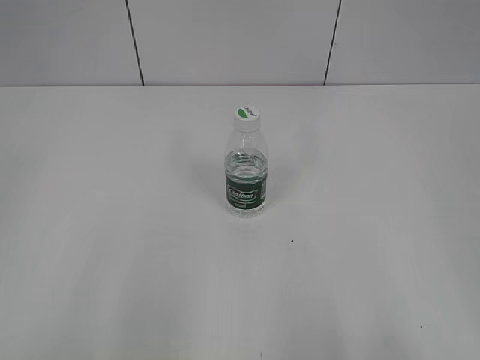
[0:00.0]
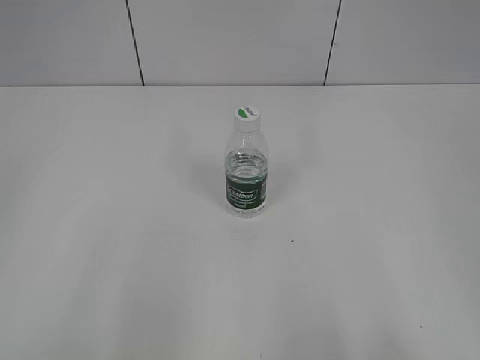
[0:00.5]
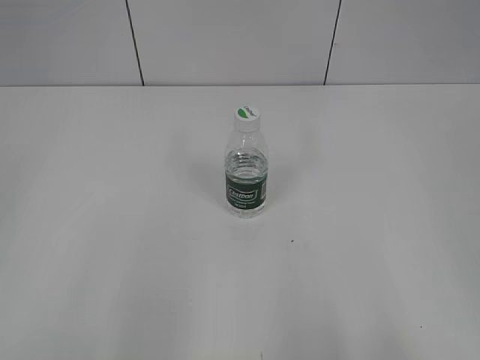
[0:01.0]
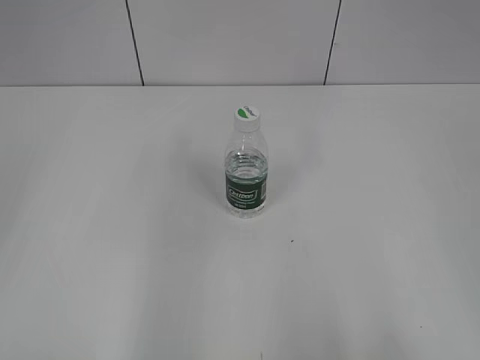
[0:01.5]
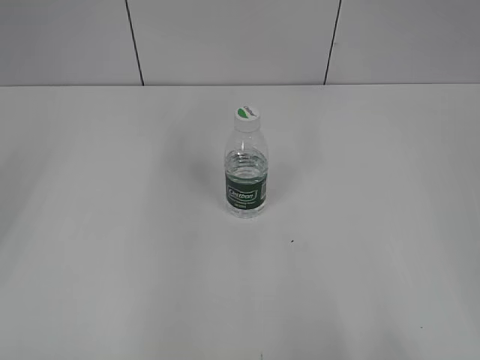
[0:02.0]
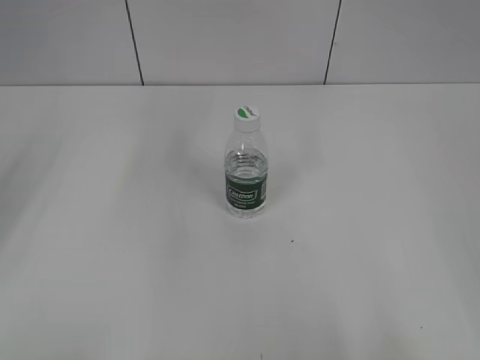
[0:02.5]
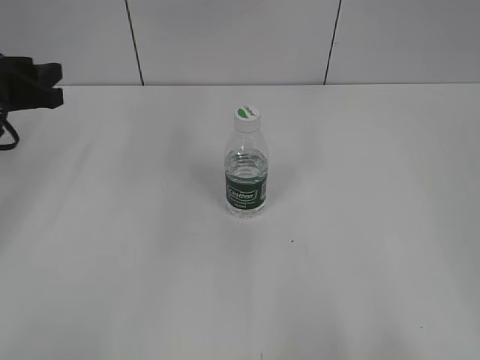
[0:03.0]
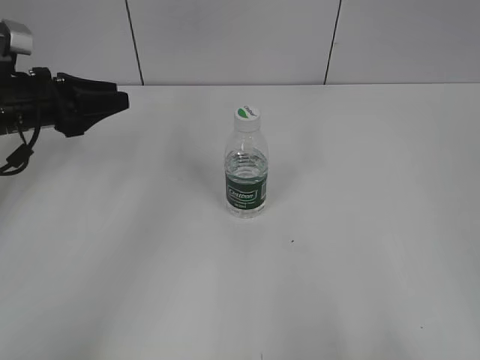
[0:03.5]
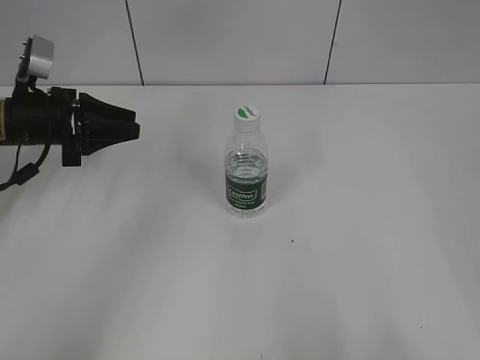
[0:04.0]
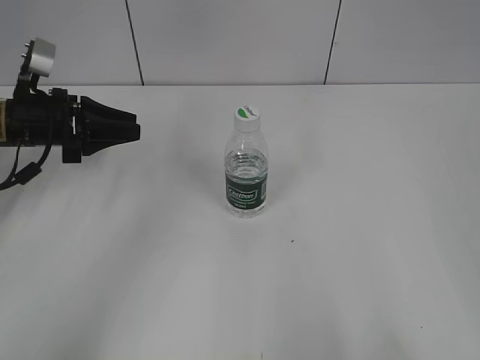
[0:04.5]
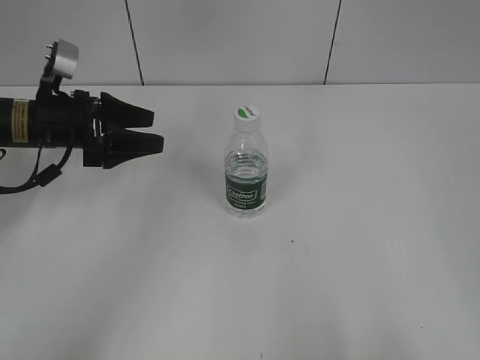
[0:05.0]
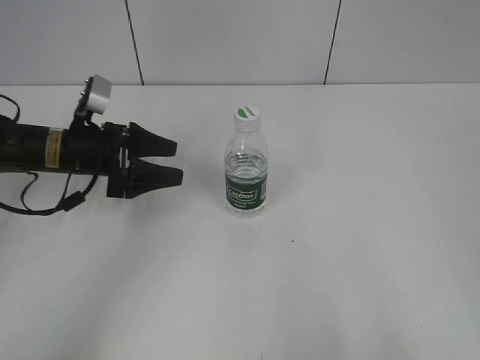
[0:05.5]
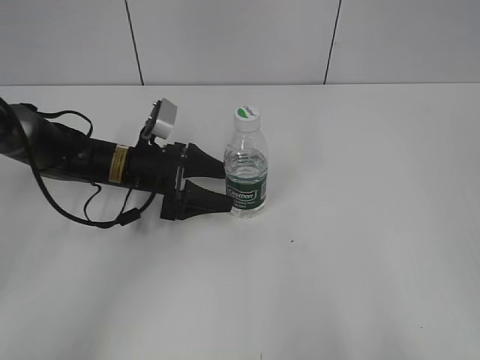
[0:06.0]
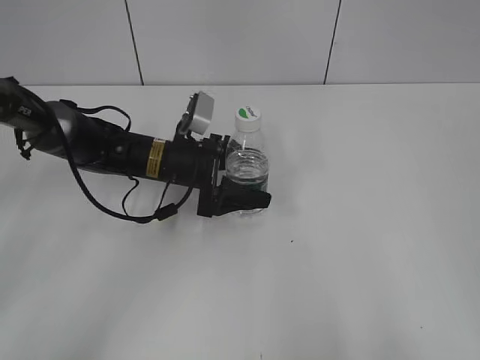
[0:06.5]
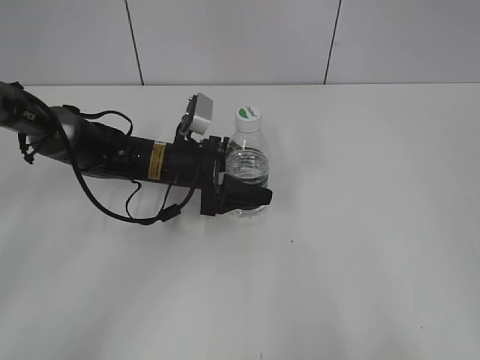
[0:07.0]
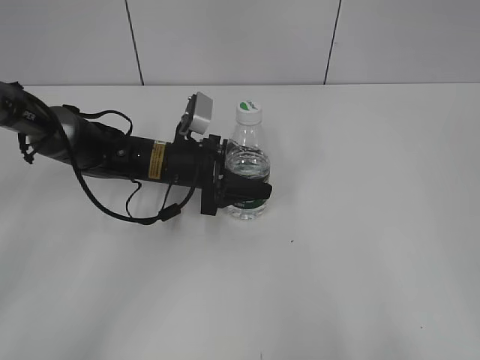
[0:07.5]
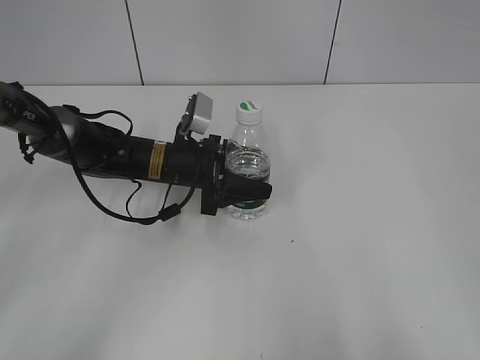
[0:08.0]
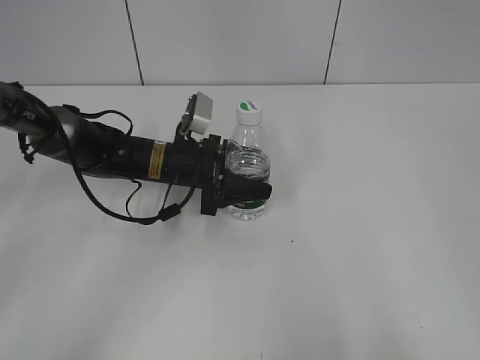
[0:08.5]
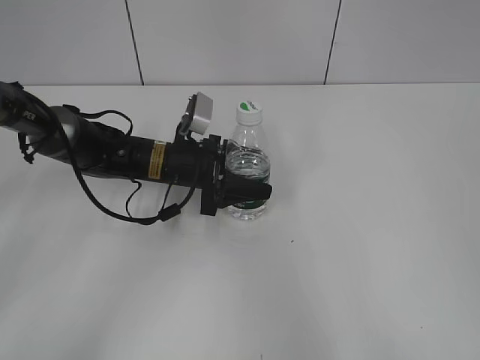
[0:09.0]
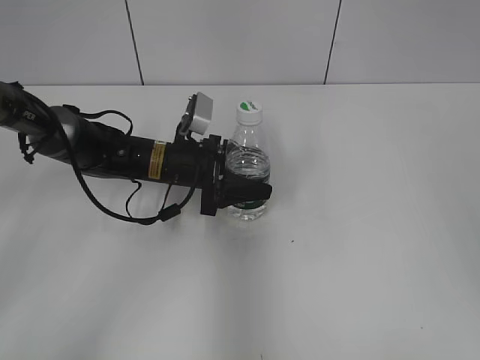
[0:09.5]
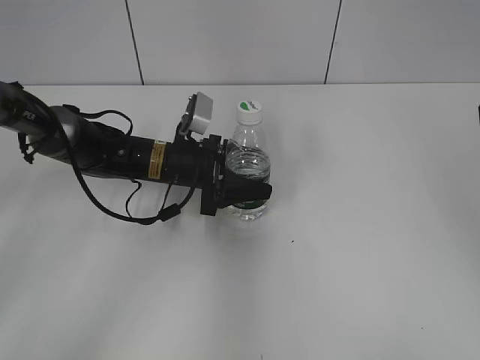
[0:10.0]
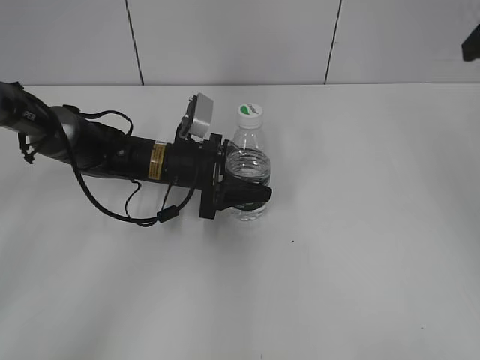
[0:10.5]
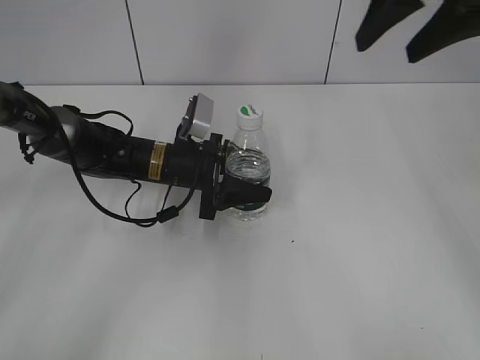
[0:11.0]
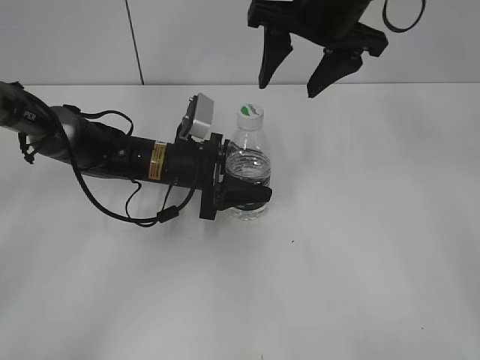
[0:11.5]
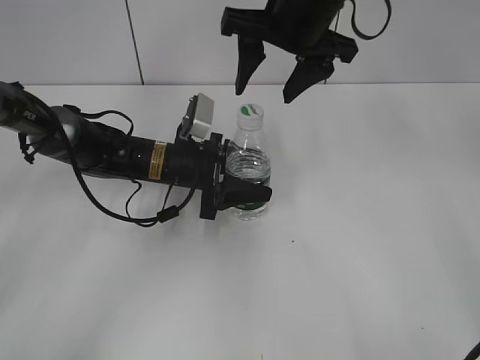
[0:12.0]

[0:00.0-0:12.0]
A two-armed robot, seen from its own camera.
Step, 0:00.0 to 0:07.5: Grasp the bottle and move it to the center of the table with the left gripper.
0:02.0 to 0:04.0: The left gripper shifts approximately 25 cm forward and downward.
0:04.0 to 0:06.0: The left gripper heads to the right and downward, covering roughly 15 cm, and opens.
0:06.0 to 0:08.0: The left gripper shifts some 5 cm to the right, and closes up.
0:08.0 to 0:10.0: The right gripper travels forward by some 25 cm.
0:10.0 to 0:12.0: The right gripper moves to the left and forward, approximately 25 cm.

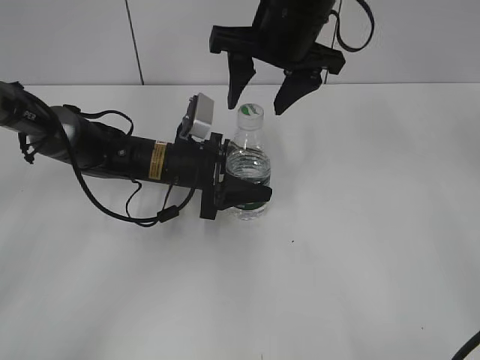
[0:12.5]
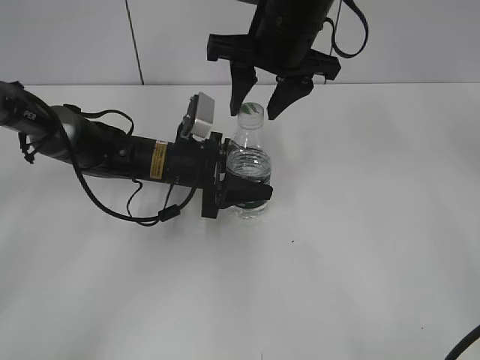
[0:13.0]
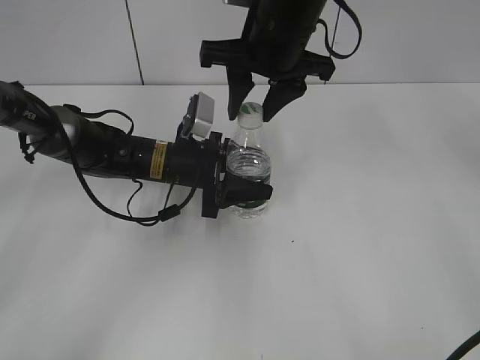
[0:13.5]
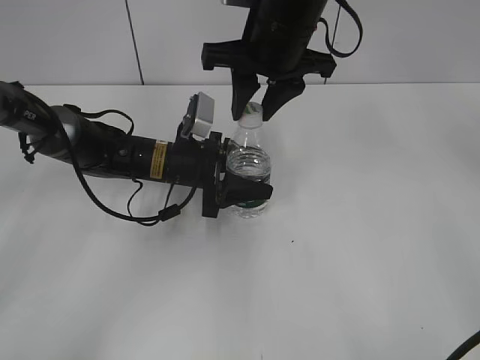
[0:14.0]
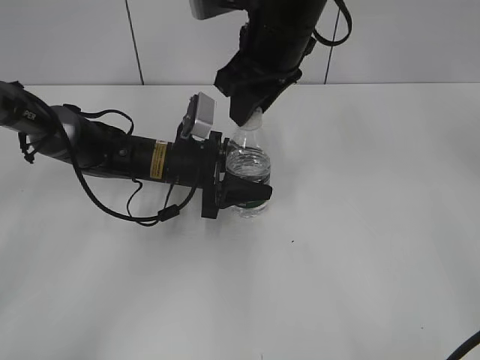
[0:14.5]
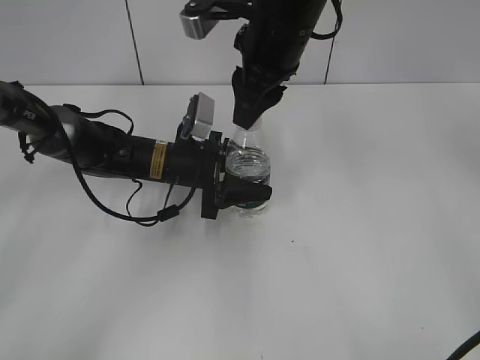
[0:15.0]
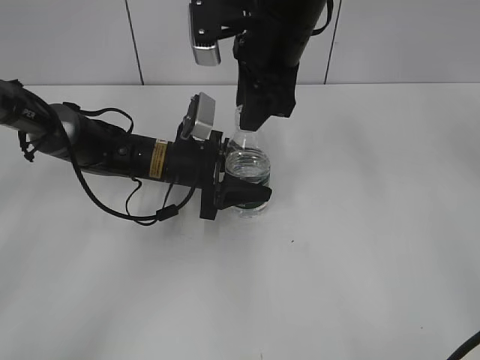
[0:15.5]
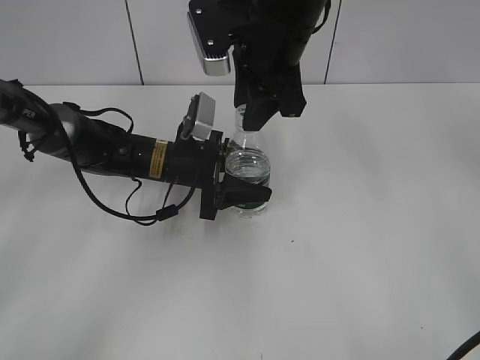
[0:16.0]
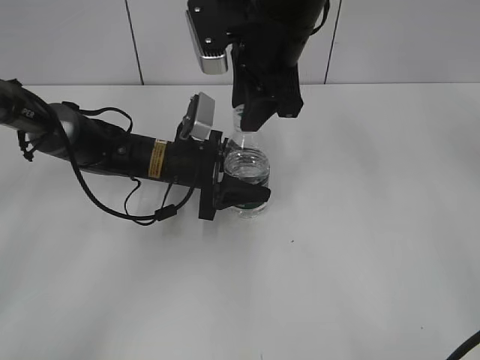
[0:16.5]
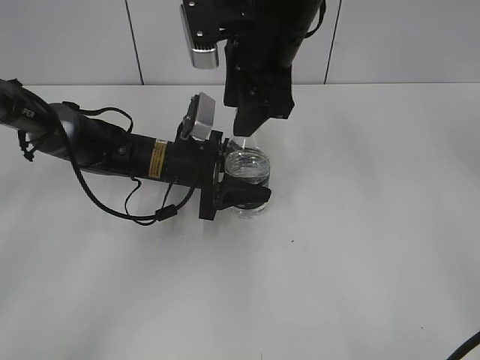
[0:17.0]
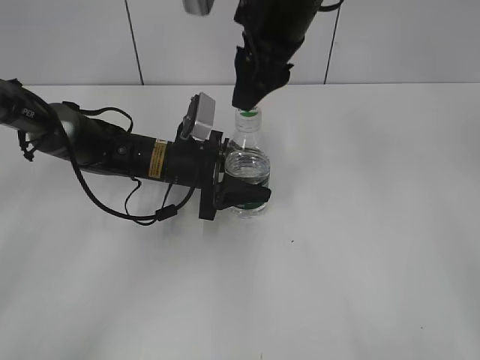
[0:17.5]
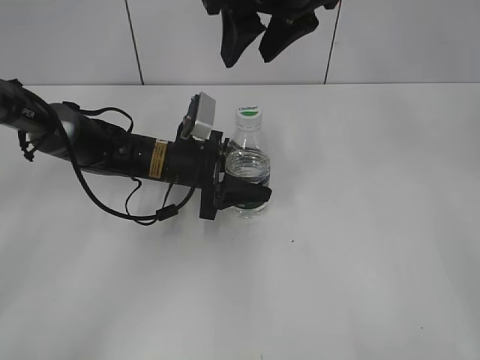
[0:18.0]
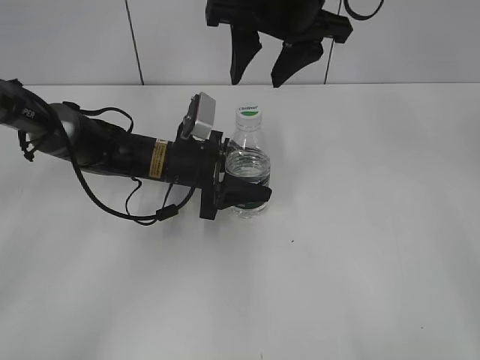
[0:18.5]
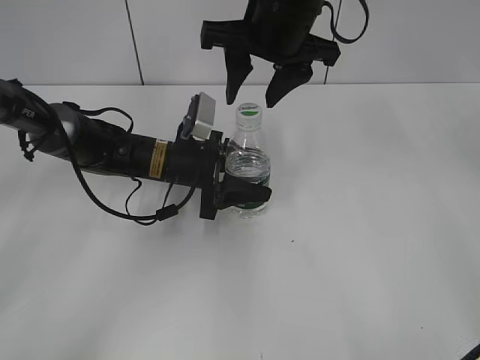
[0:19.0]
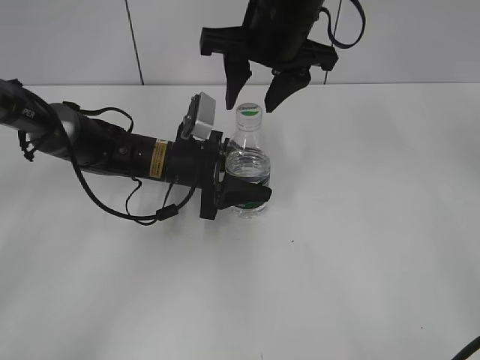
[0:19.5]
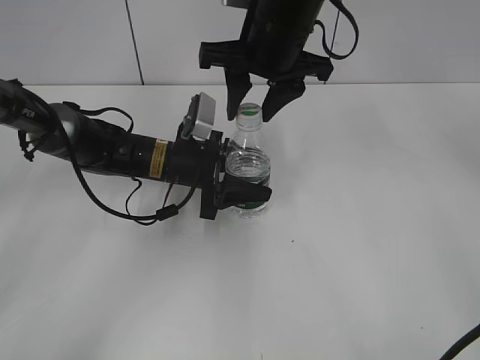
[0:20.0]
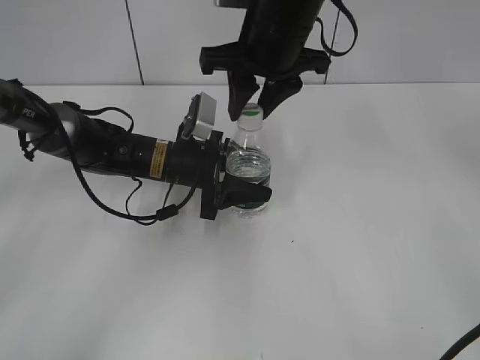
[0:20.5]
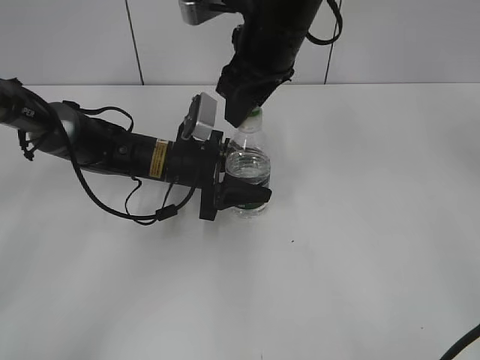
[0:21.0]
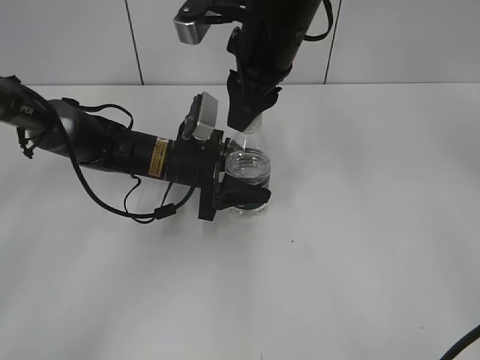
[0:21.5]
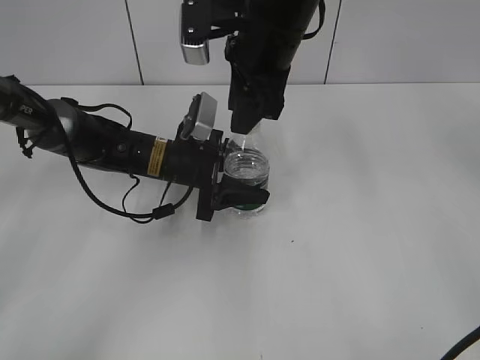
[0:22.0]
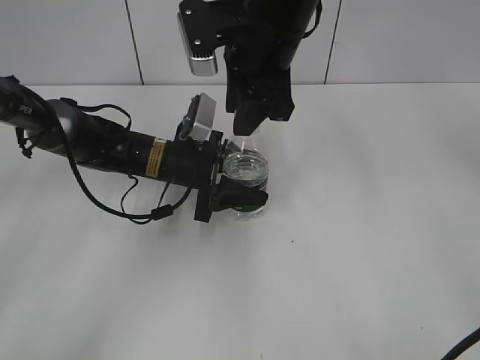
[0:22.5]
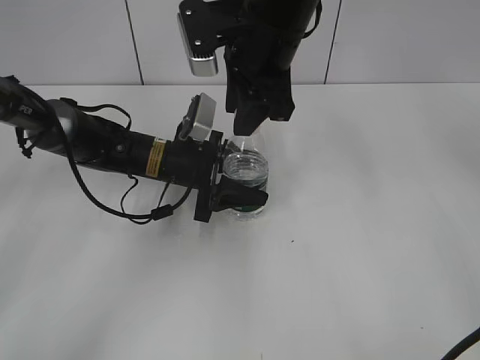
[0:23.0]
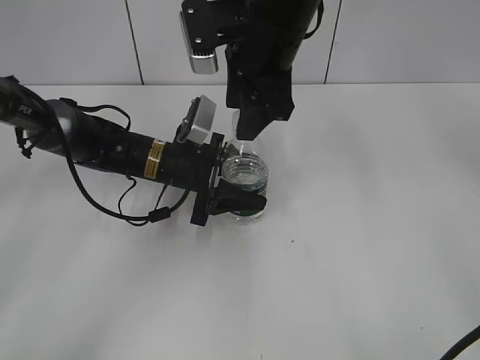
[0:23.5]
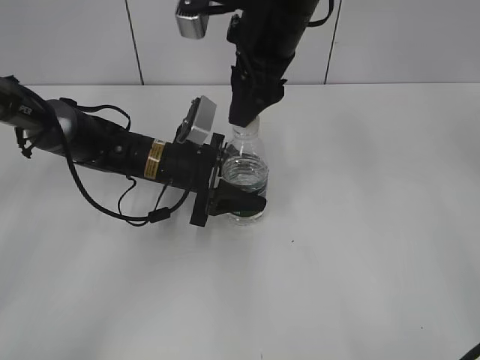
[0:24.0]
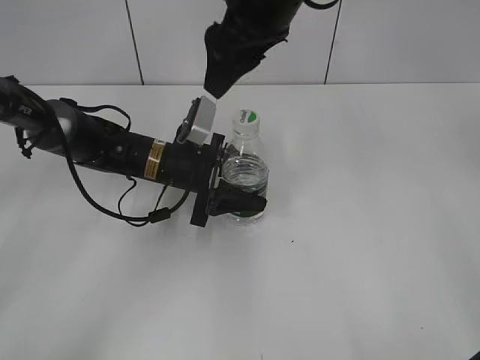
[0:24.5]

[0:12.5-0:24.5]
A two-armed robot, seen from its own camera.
0:12.5 to 0:14.5: The right gripper closes.
0:16.5 to 0:18.5: The right gripper opens.
0:18.5 to 0:20.5: The right gripper closes its fingers.
0:22.5 to 0:24.5: The right gripper opens its fingers.

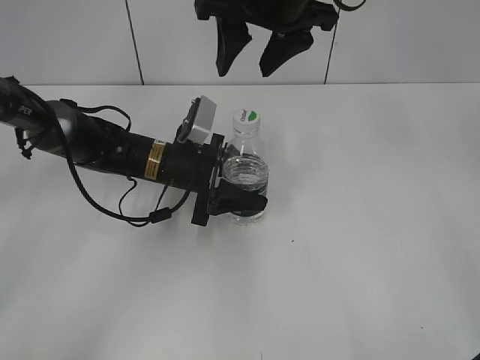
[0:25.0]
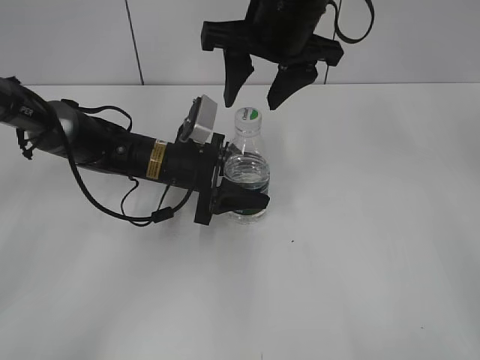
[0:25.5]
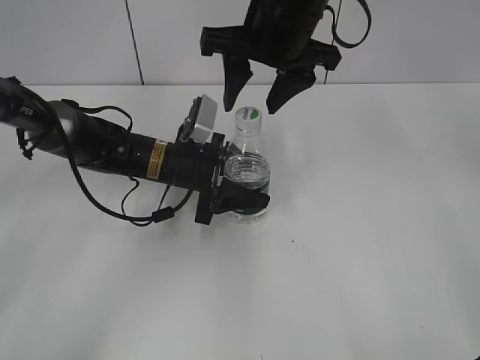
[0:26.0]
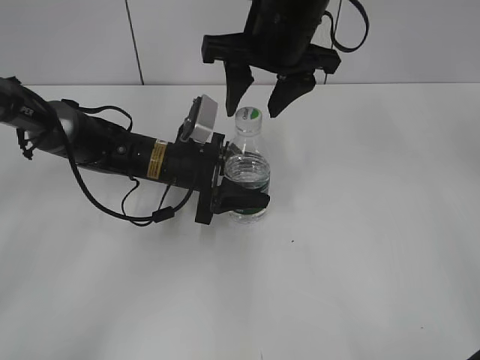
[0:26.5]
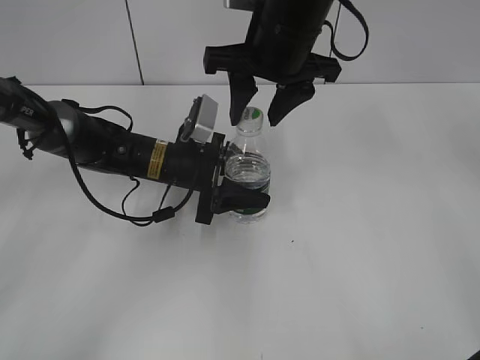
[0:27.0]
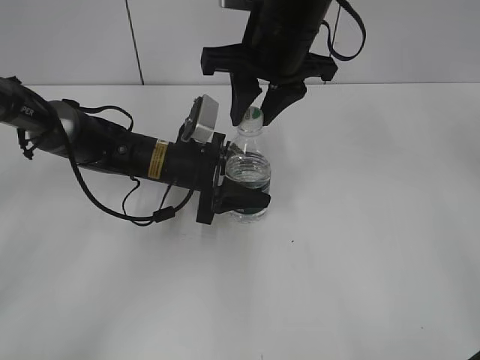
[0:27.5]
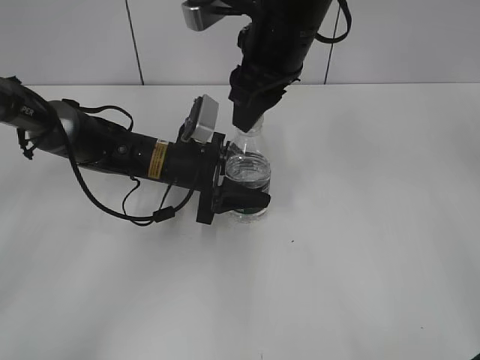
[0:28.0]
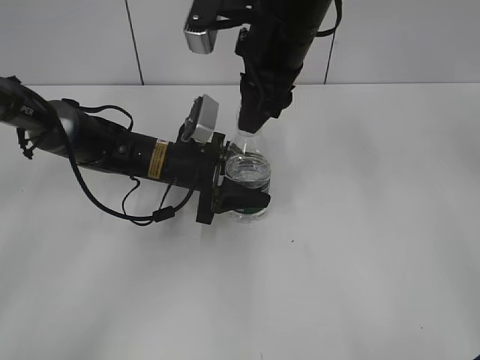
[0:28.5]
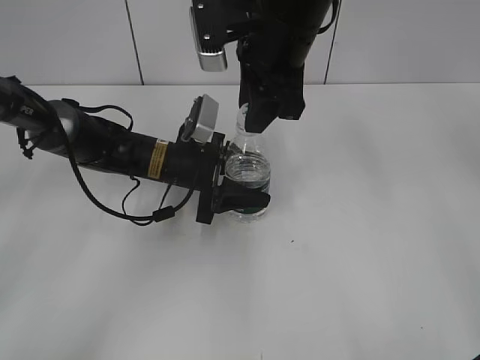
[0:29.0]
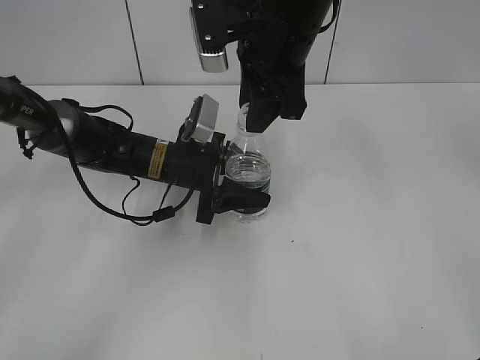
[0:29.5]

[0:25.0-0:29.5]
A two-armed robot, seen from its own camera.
0:25.0 to 0:27.0: There are only small adjustments of the grippers.
0:27.0 to 0:29.5: The right gripper closes up.
